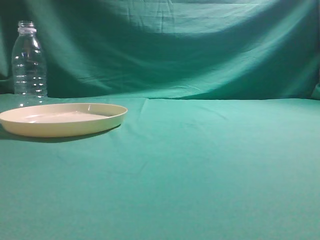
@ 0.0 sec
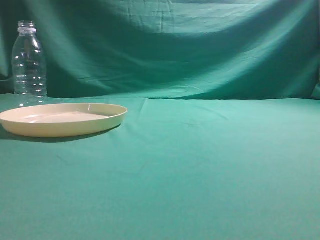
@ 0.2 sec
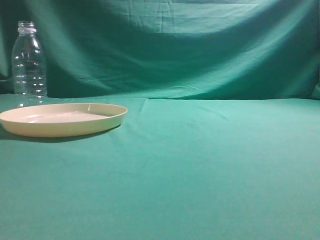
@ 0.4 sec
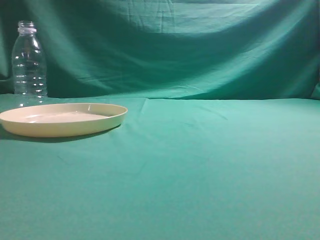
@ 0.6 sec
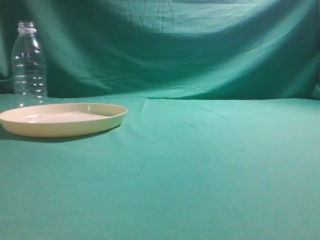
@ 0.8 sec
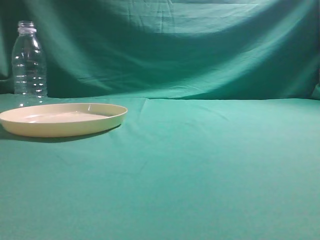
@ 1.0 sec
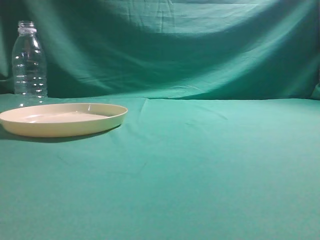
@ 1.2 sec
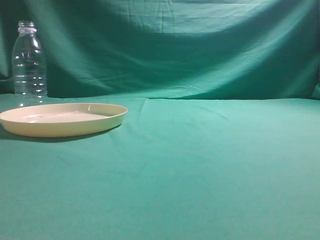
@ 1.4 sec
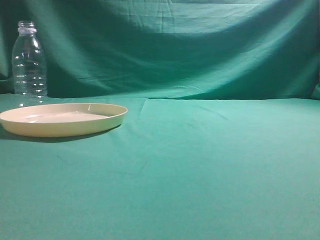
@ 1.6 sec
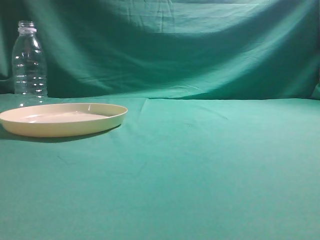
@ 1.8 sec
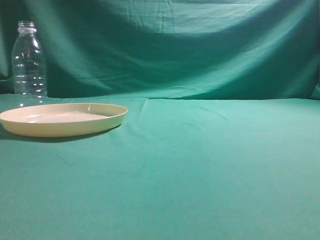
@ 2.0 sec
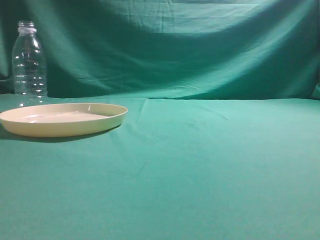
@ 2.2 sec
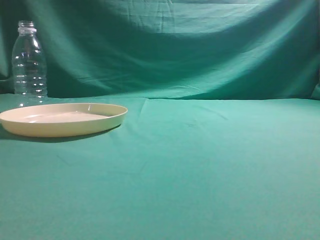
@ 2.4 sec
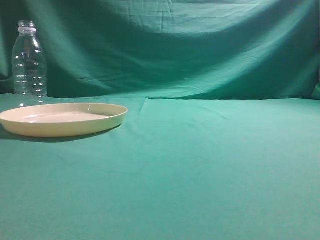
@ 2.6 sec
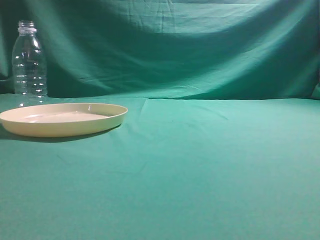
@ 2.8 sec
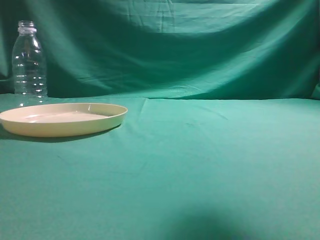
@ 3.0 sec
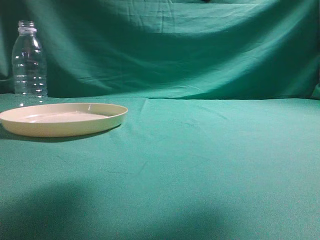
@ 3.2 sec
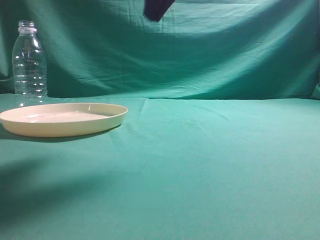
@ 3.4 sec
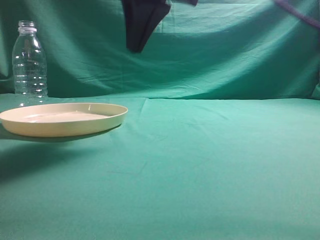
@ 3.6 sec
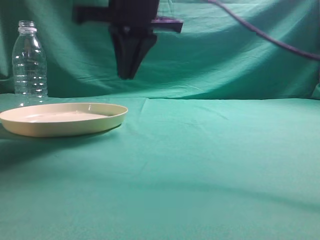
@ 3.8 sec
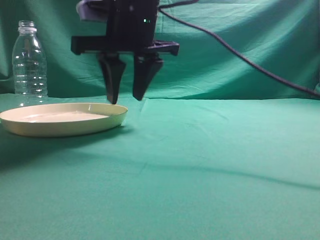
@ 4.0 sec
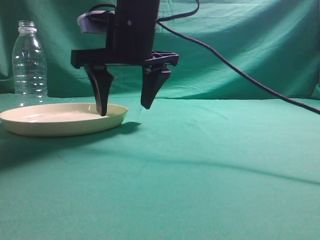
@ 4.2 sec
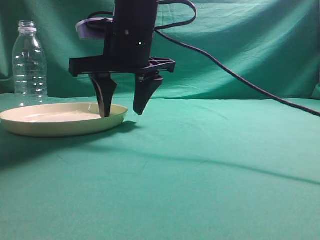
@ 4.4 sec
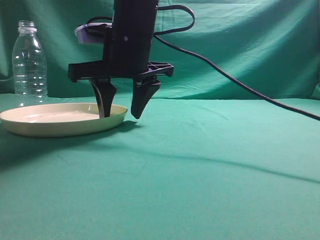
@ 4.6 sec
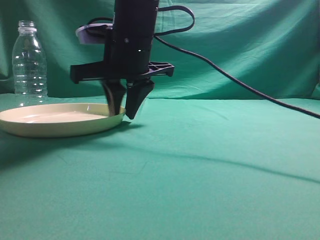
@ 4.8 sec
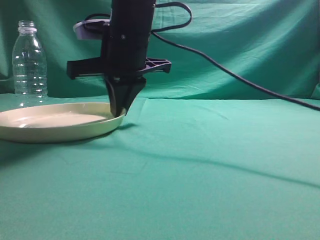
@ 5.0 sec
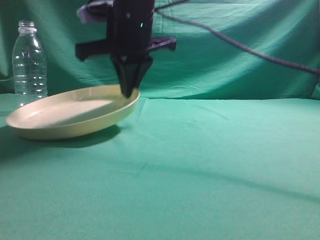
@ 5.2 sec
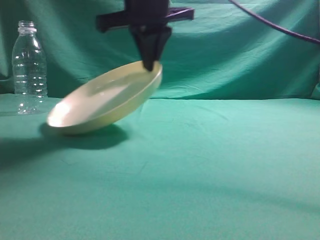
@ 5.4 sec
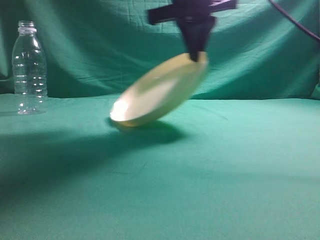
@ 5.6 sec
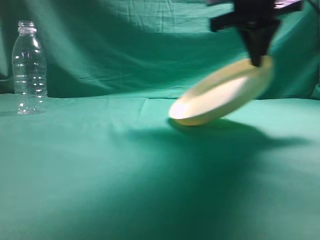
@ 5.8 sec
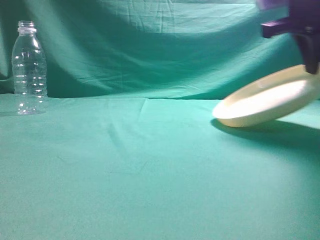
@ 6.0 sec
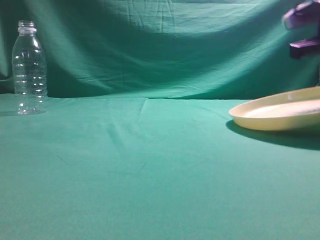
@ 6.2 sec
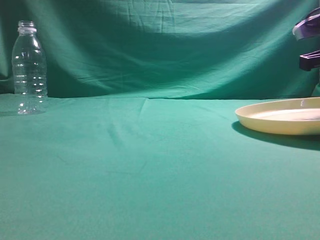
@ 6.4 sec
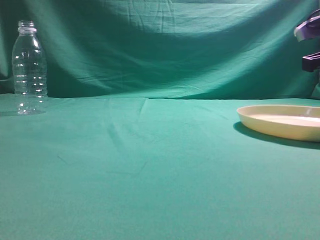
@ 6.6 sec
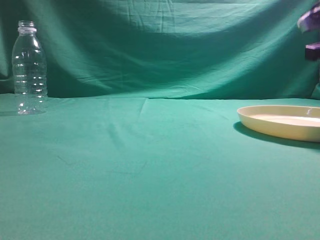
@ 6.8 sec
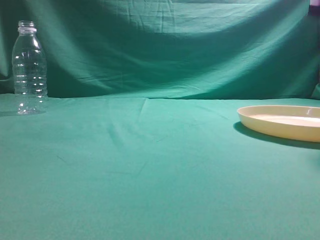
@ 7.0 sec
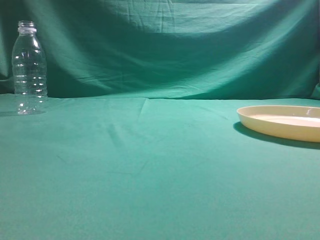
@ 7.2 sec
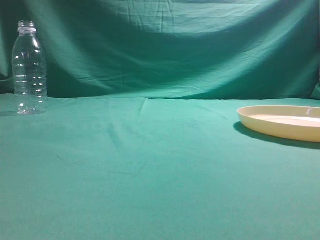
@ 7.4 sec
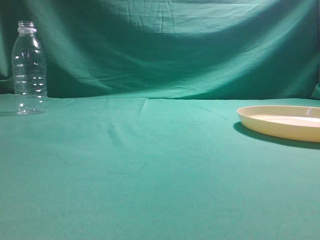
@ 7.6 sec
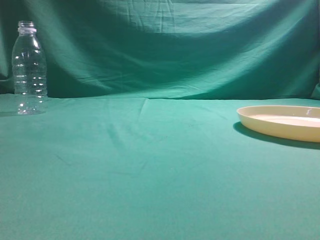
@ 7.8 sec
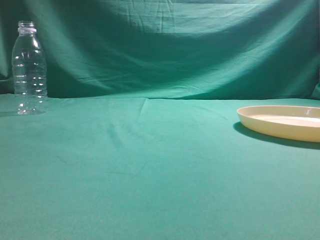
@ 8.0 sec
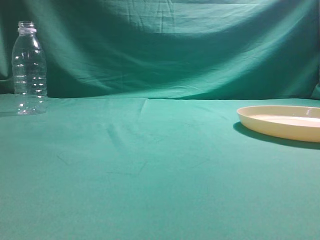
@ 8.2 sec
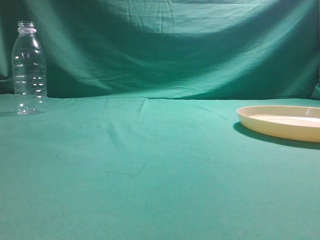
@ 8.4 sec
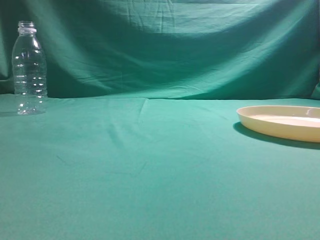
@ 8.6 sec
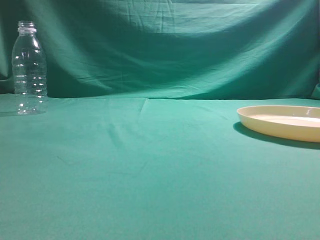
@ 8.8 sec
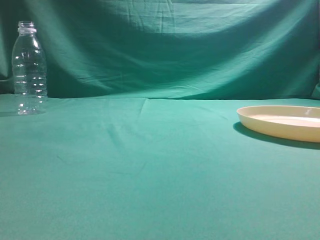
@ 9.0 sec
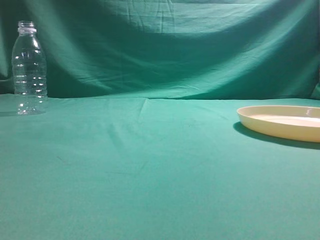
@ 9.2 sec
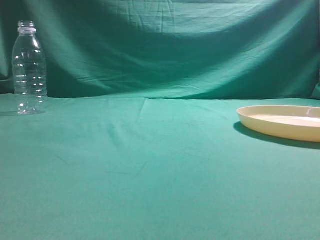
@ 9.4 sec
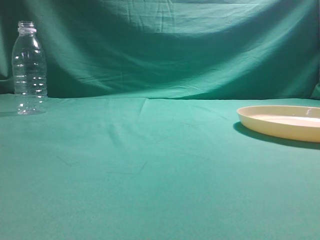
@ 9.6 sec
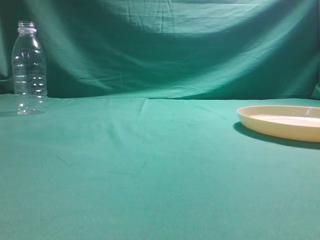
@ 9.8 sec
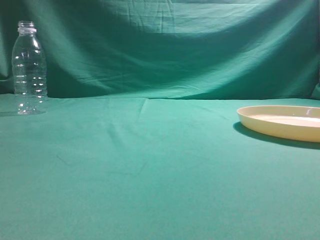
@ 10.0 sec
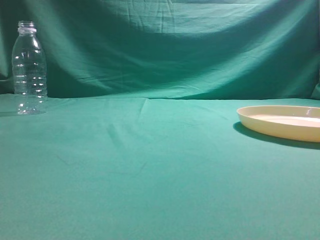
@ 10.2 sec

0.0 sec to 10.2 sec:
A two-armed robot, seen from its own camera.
Step, 0.0 sec to 5.2 sec: Pick the container that can hold fruits.
Step, 5.4 sec to 7.8 sec: Move the picked object to the right side of the table.
1.4 sec to 3.0 sec: The right gripper travels forward, upward and to the left by some 20 cm.
3.0 sec to 4.4 sec: The right gripper moves to the left, forward and downward, some 30 cm, and opens up.
4.4 sec to 5.8 sec: The right gripper goes about 15 cm to the right and upward, and closes.
5.8 sec to 7.2 sec: The right gripper is displaced to the right and backward by about 20 cm, and opens up.
